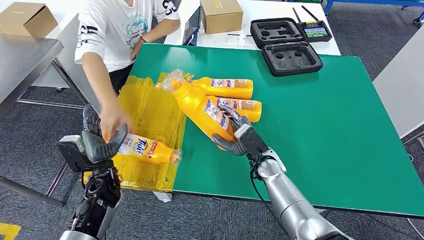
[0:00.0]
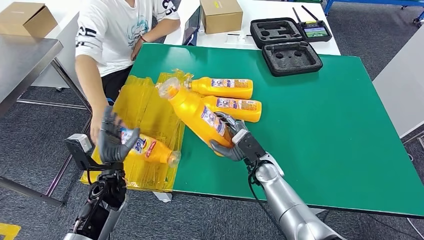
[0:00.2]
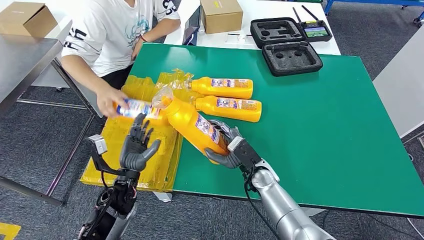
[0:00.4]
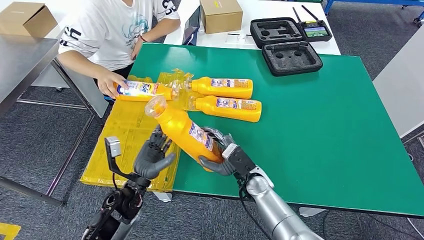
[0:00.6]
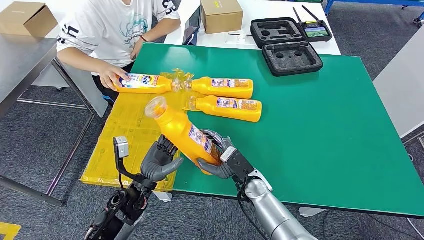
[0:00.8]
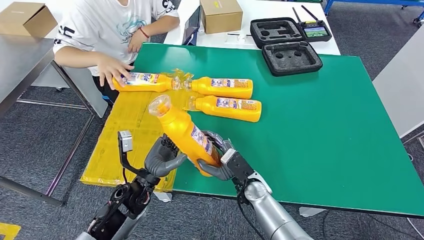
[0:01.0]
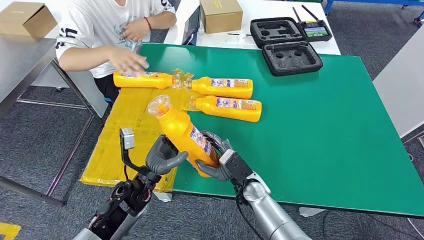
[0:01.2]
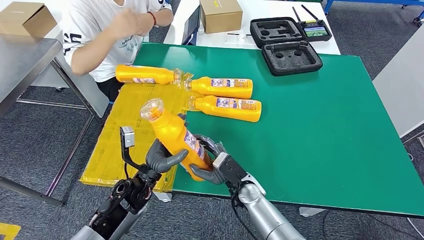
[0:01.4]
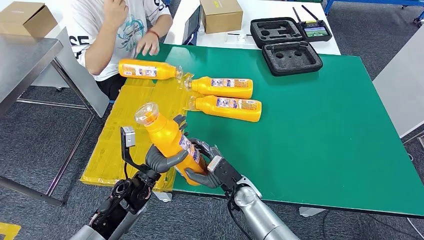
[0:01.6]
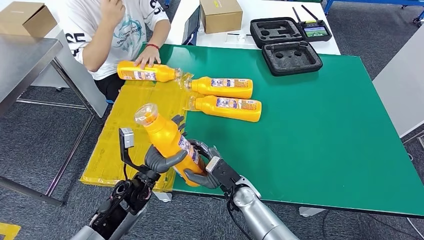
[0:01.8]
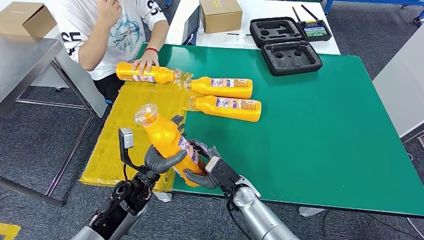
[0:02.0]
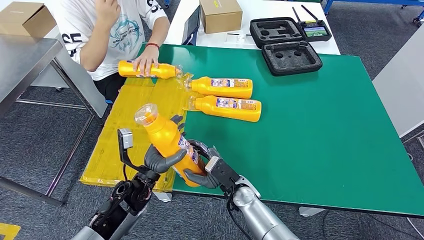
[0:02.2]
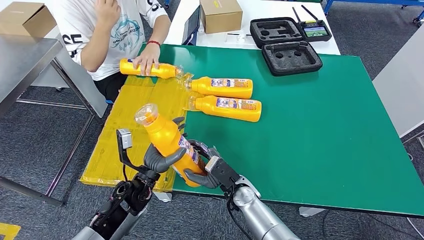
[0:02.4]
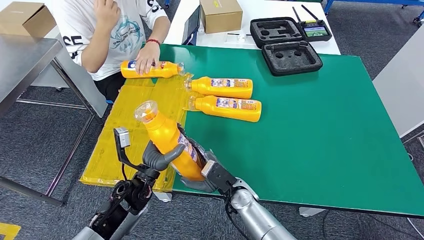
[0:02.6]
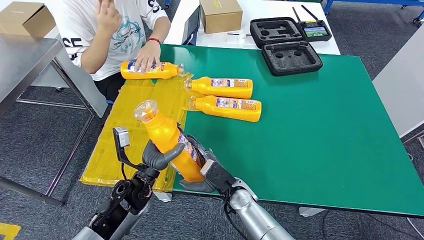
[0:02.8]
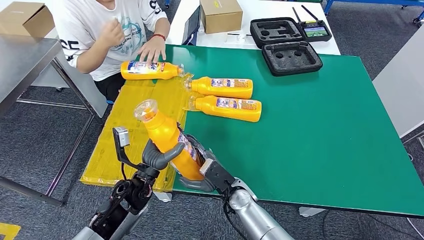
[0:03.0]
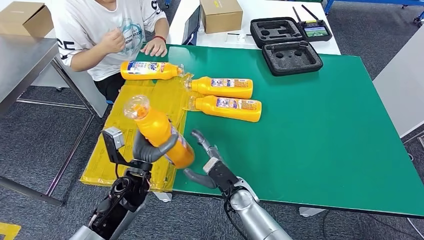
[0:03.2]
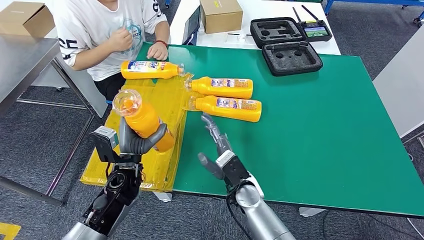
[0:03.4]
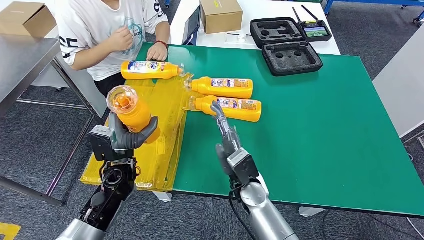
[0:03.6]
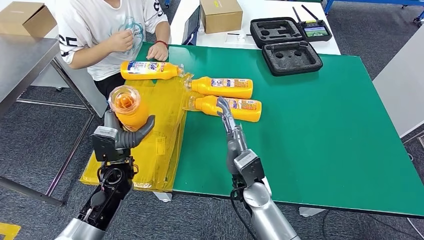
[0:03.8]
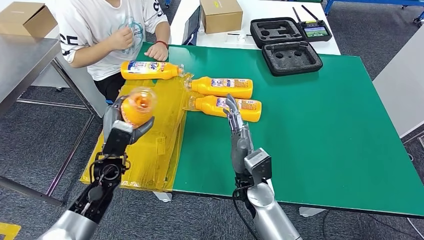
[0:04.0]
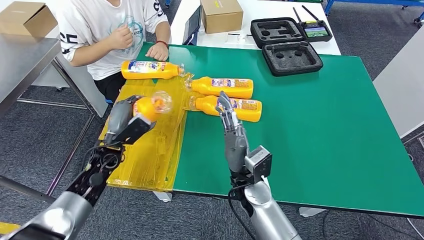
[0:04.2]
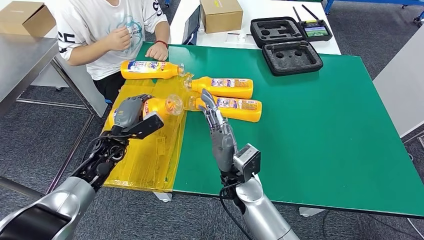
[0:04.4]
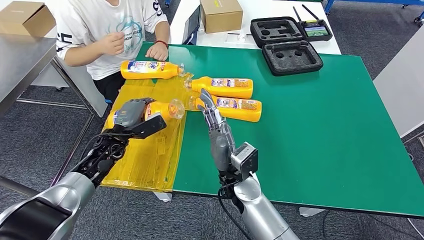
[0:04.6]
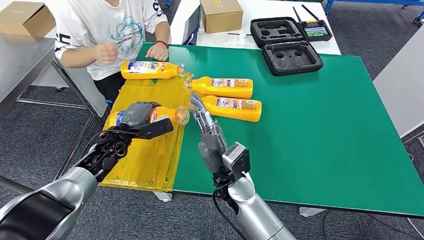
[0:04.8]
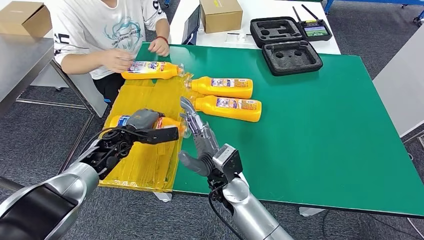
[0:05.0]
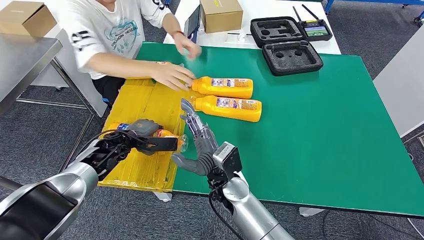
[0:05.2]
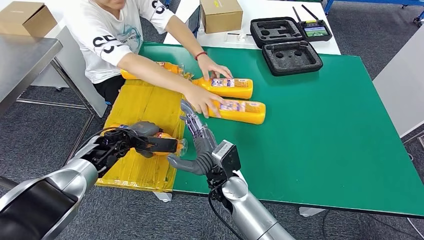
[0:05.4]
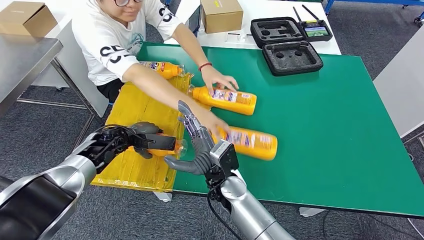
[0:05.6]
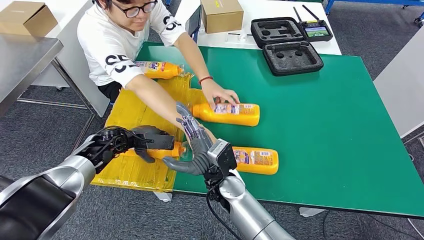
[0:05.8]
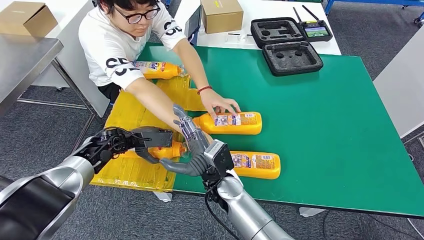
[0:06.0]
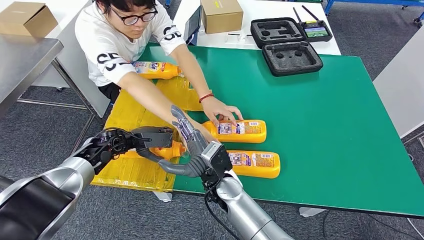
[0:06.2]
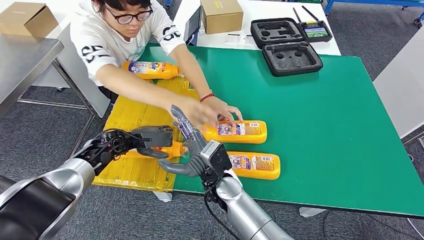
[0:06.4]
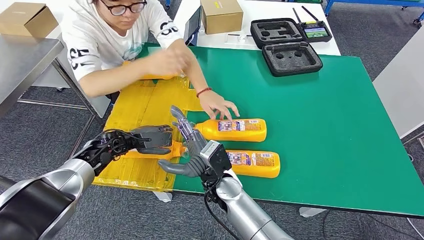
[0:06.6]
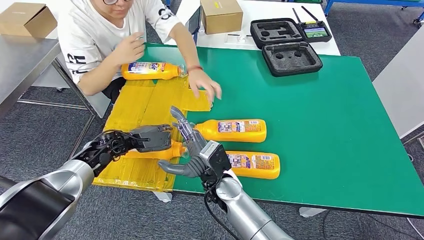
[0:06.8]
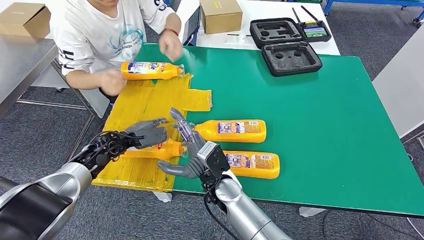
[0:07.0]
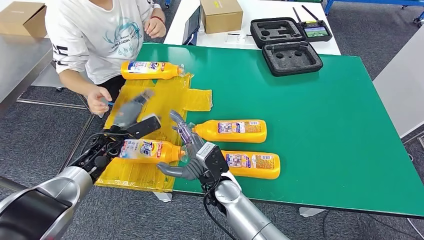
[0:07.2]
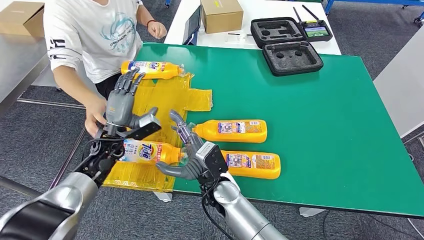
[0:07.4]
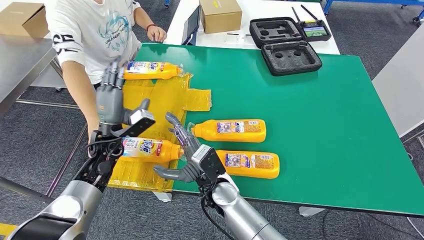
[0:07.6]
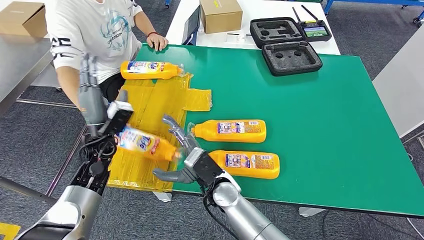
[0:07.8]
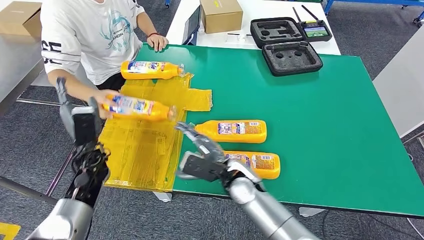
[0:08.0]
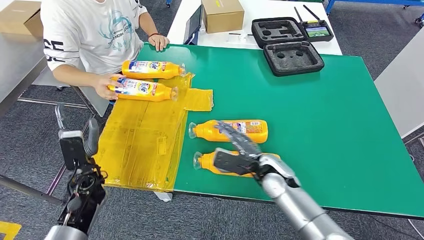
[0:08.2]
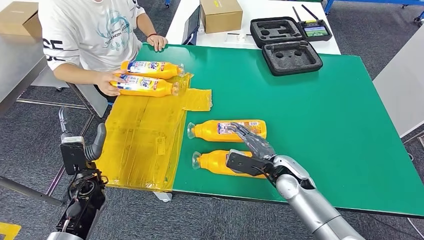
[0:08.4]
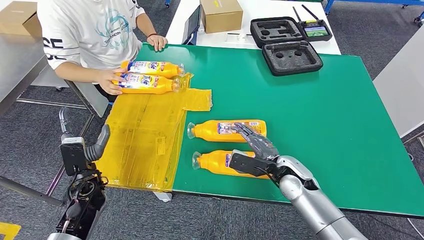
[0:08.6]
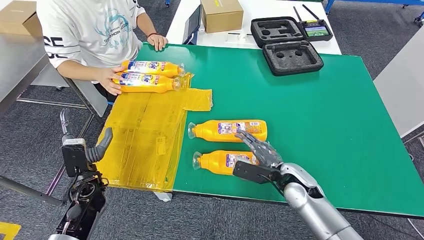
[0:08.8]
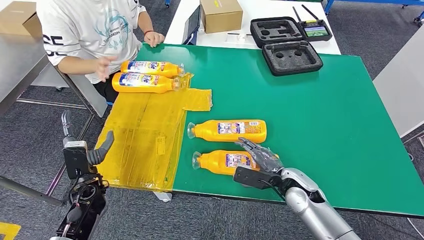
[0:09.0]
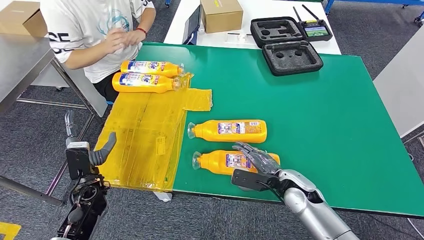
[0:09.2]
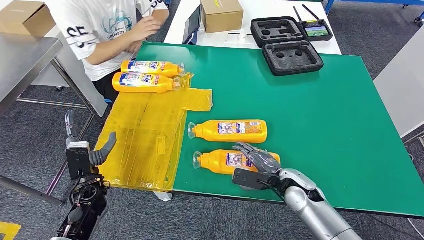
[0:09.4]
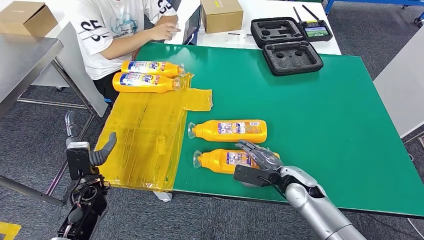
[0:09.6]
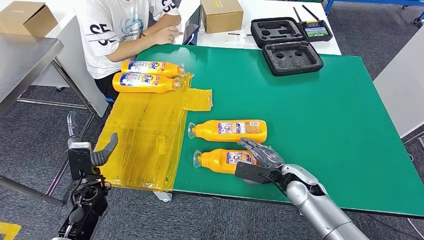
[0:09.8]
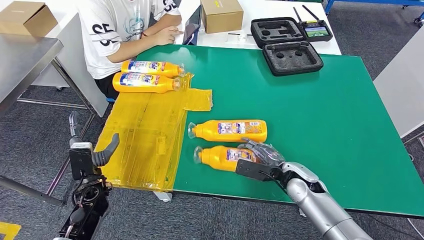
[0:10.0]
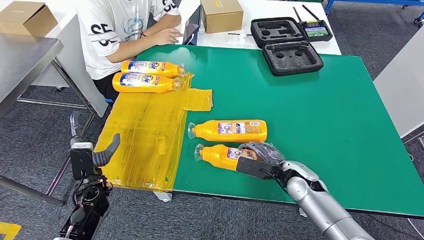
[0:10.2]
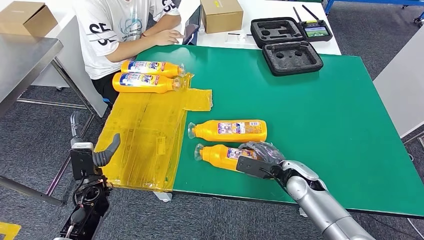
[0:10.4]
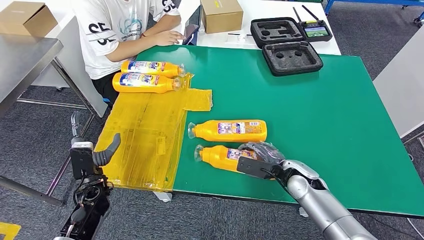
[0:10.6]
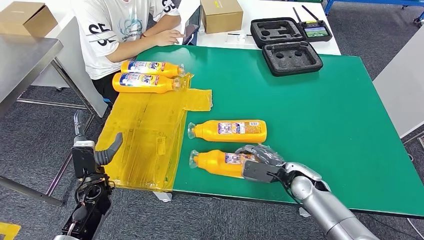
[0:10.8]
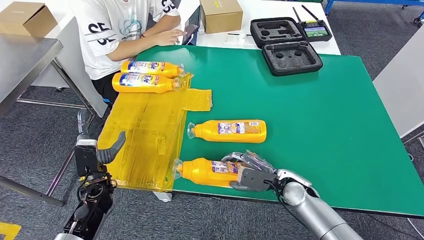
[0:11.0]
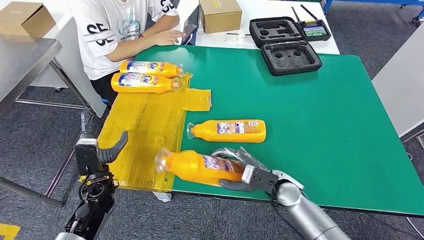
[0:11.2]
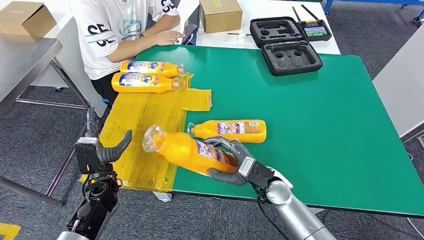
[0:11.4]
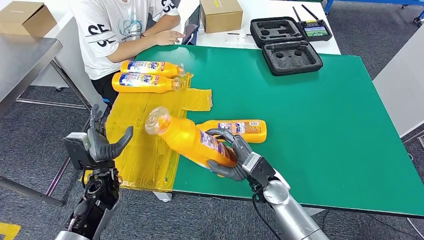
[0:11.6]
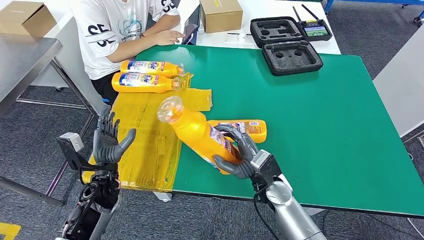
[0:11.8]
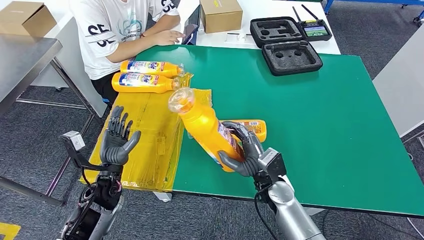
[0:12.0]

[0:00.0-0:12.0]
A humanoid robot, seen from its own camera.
Step, 0:00.0 to 0:06.4: Flip the fast-moving consumer goods bottle to the front side.
0:01.6 to 0:03.0: The hands stay close to where they were, moving slightly.
0:09.0 to 0:10.4: There are only small adjustments of the hands.
0:10.4 to 0:12.0: The left hand moves roughly 5 cm, while the right hand shifts about 10 cm to the left.

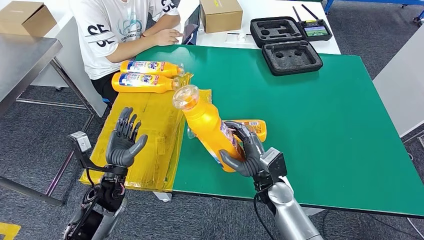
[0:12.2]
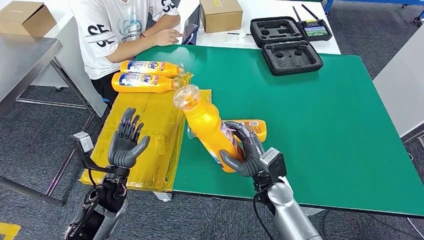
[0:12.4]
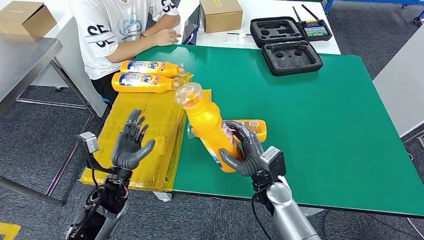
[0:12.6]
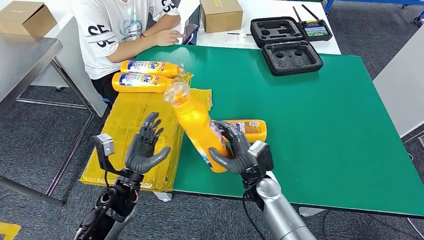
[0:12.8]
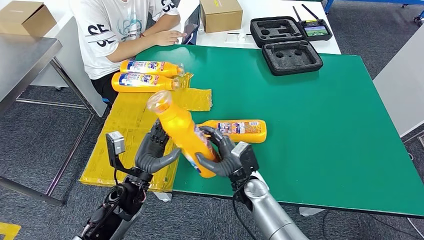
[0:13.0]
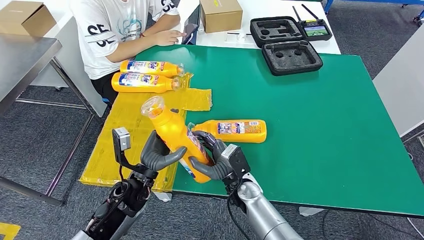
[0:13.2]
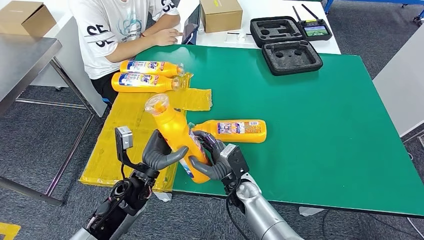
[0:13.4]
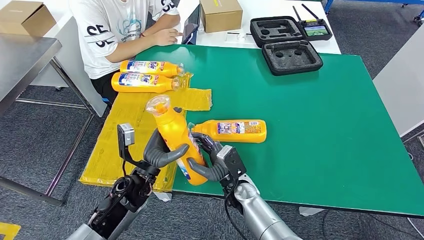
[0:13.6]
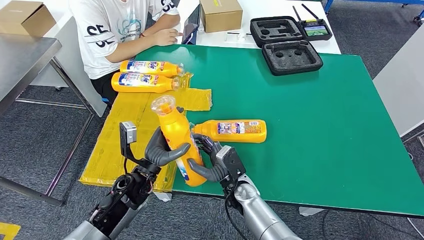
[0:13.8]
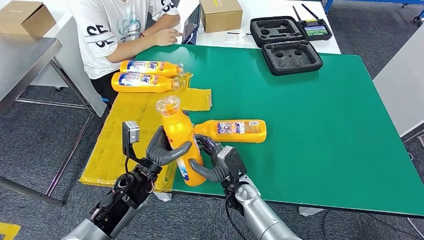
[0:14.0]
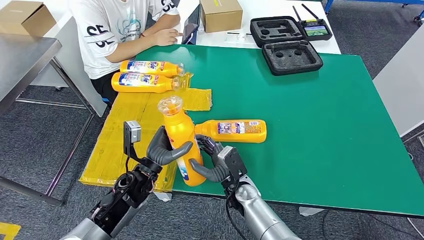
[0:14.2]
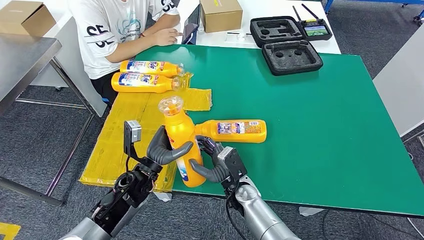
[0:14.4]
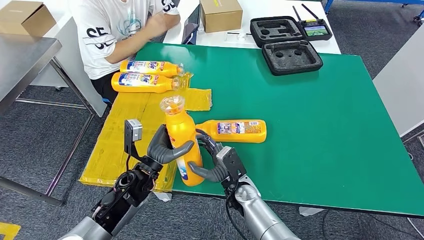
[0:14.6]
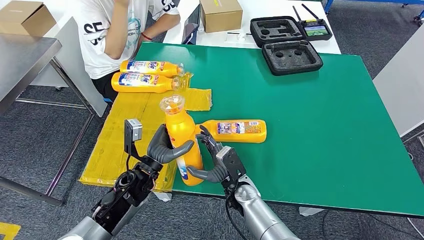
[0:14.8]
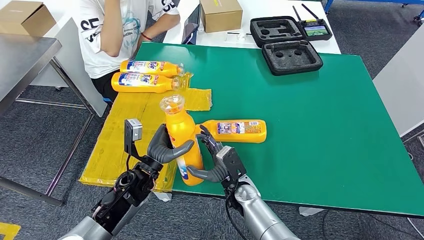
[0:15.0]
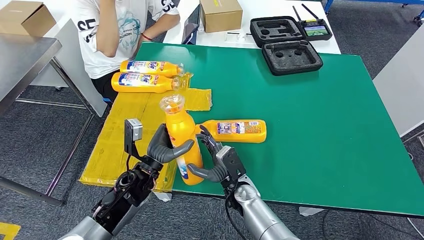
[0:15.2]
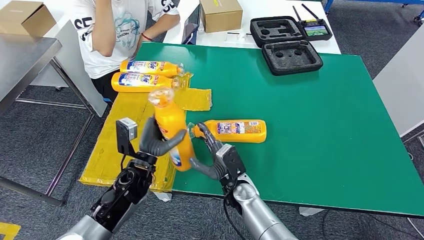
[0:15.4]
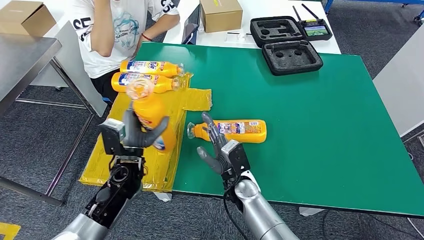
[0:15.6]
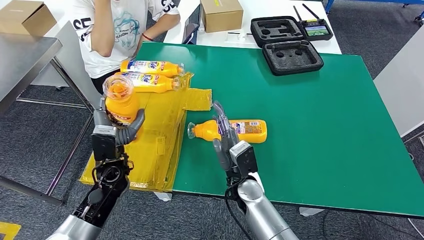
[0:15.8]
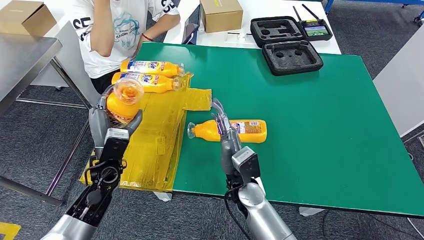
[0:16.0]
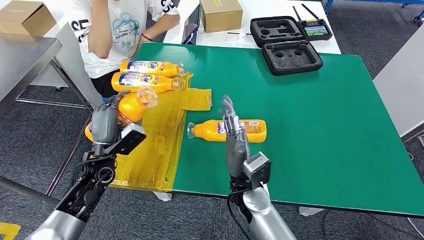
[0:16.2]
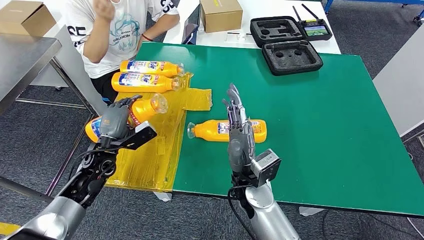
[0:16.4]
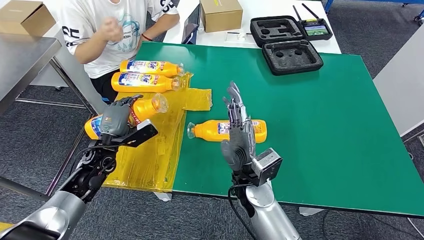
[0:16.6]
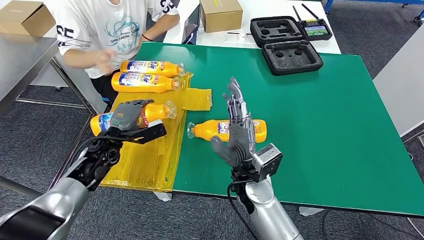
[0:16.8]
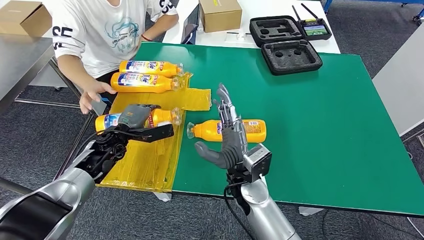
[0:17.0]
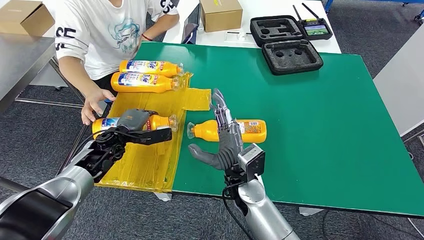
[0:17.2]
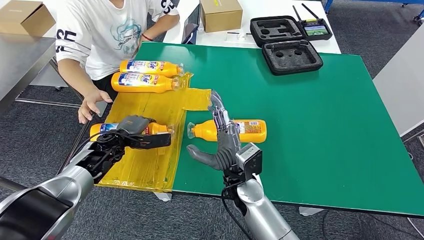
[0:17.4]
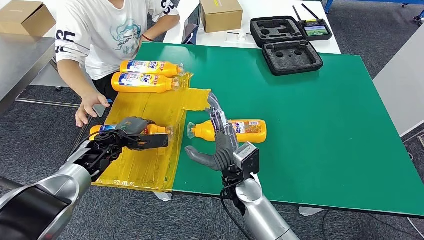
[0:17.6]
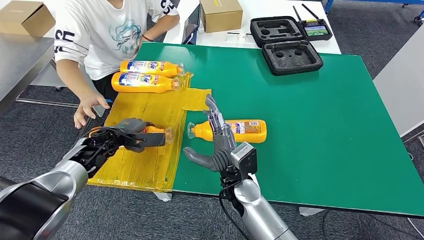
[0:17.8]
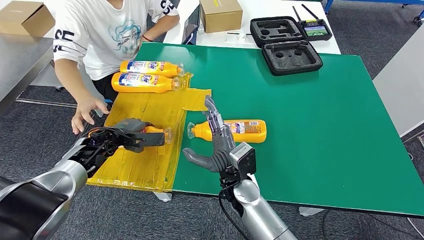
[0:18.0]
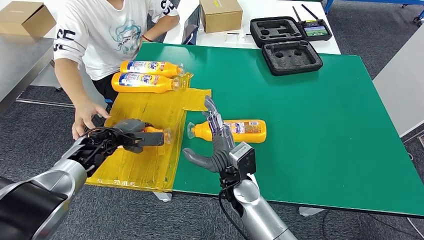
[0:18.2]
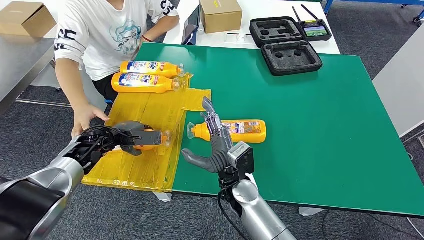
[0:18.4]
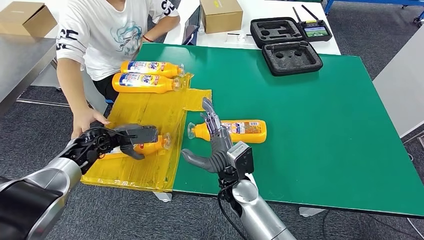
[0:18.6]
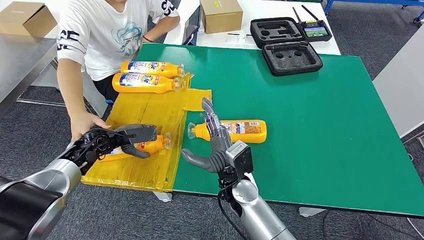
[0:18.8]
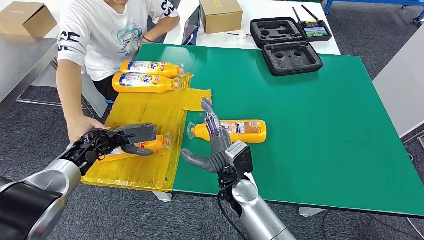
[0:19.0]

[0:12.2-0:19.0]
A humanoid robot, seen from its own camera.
Step, 0:13.4 to 0:18.2: Flip the fast-moving consumer goods bottle to the front side.
0:12.2 to 0:13.6: The right hand heads to the left, covering roughly 10 cm. The left hand shifts about 10 cm to the right.
0:13.6 to 0:15.0: Both hands stay about where they are.
0:15.0 to 0:16.2: The left hand moves to the left, about 10 cm, while the right hand shifts roughly 10 cm upward.
0:16.2 to 0:17.6: The left hand heads forward, covering some 10 cm.
